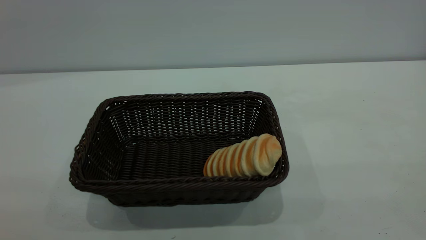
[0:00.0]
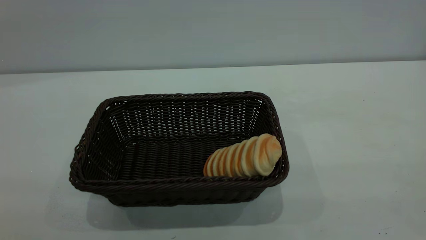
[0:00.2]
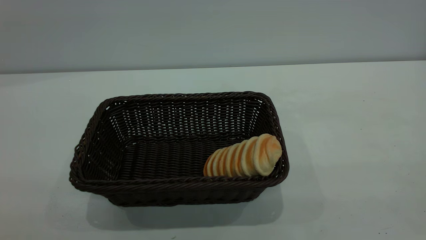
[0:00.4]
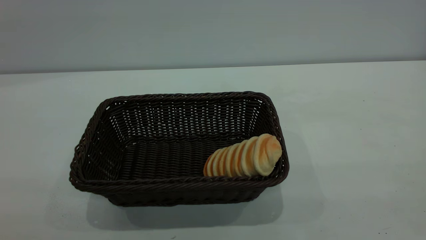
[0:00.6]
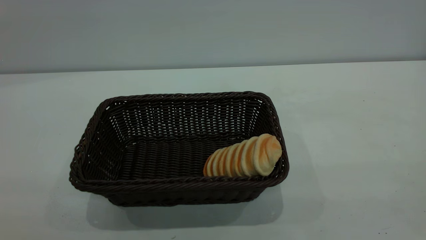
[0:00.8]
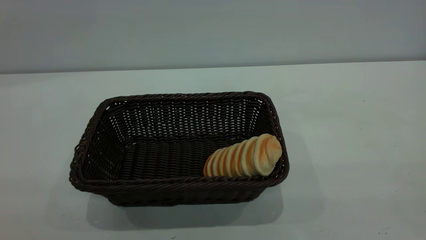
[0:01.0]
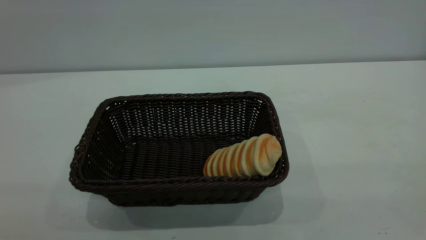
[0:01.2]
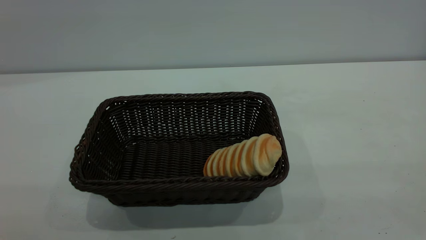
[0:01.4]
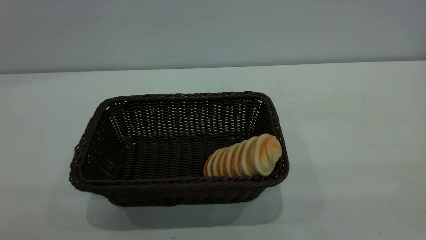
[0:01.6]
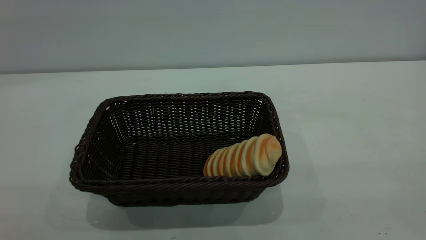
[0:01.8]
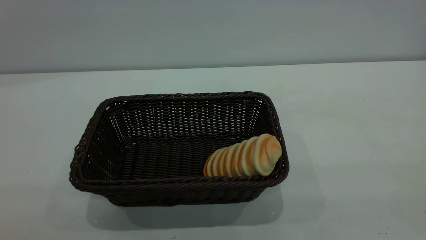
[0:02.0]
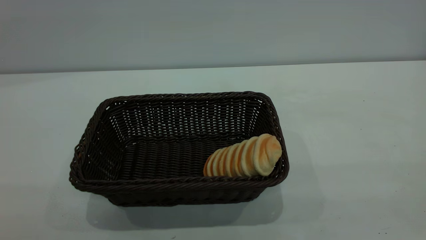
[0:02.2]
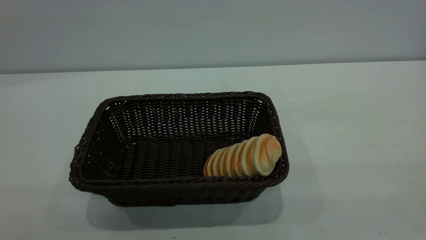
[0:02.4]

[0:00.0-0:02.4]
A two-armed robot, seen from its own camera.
Task of the whole recording: One hand grasps the black basket and places it in the middle of the table, while the other hand picks up the long bread and puts it into the black basket.
0:01.2 to 0:02.4: Neither gripper changes place.

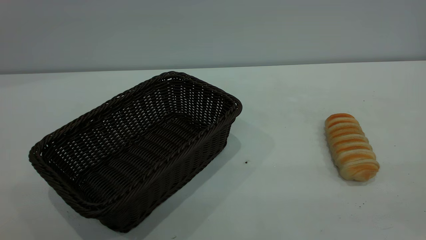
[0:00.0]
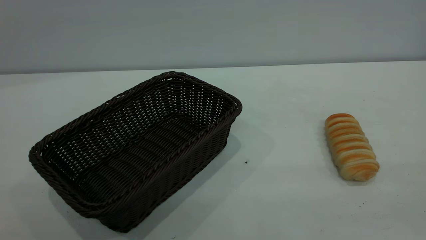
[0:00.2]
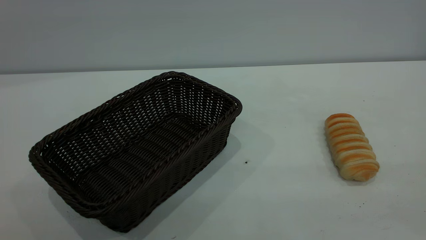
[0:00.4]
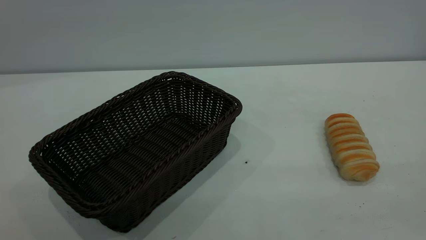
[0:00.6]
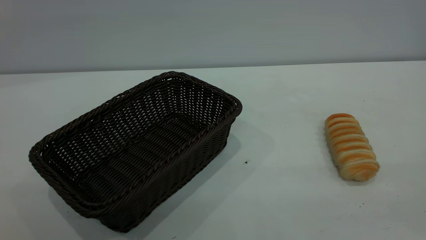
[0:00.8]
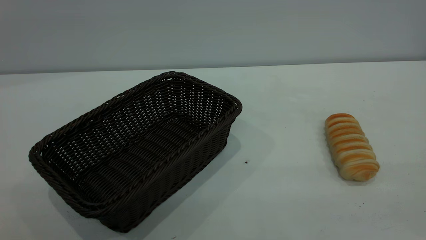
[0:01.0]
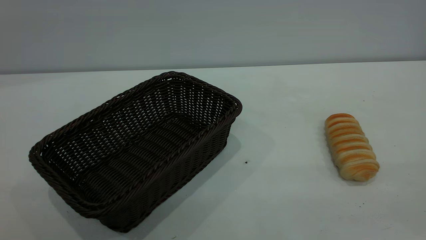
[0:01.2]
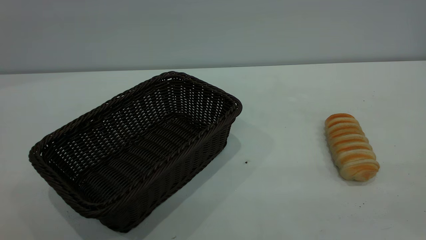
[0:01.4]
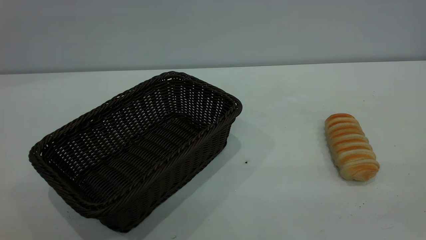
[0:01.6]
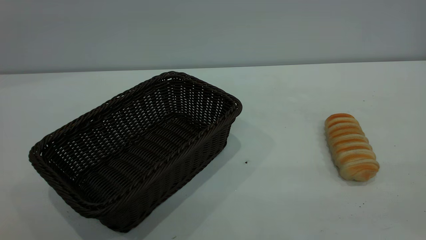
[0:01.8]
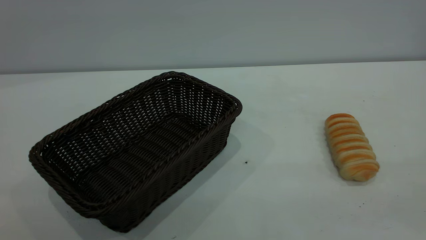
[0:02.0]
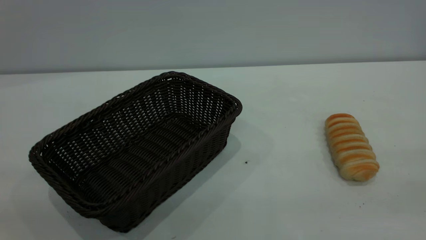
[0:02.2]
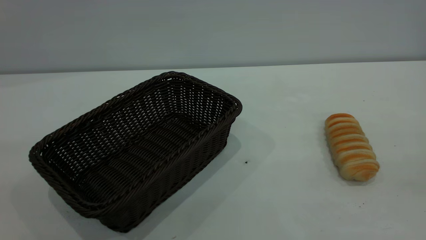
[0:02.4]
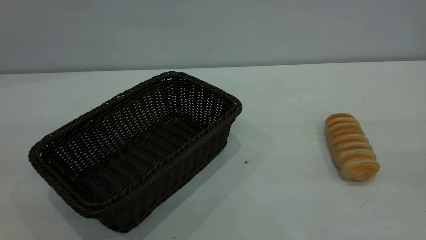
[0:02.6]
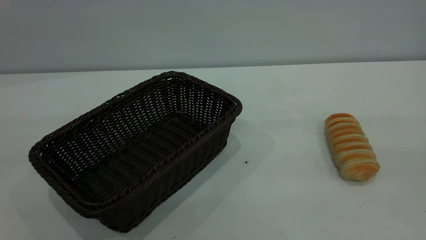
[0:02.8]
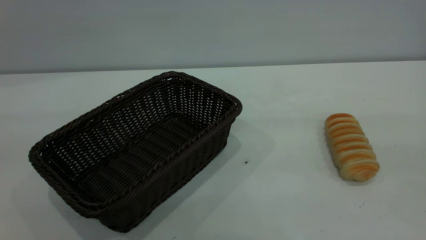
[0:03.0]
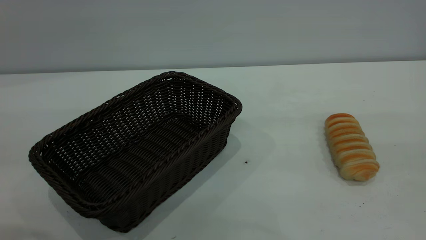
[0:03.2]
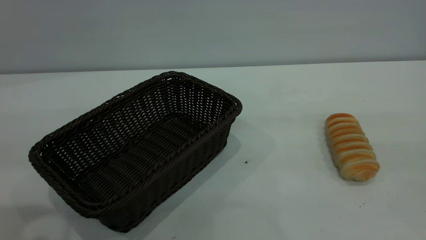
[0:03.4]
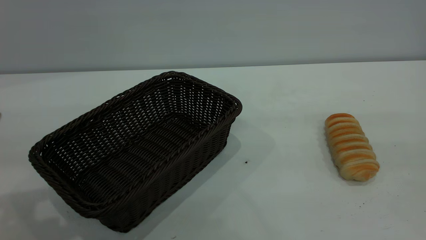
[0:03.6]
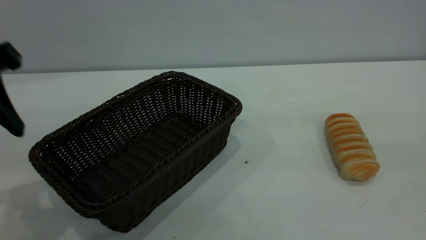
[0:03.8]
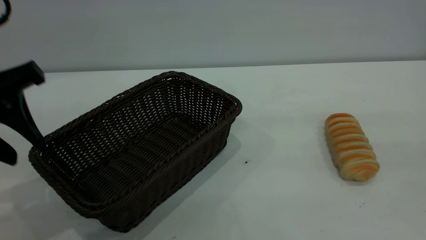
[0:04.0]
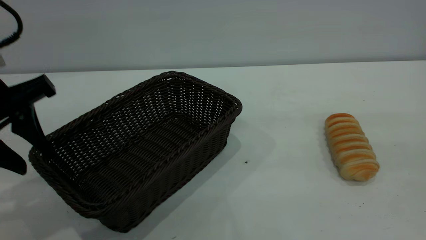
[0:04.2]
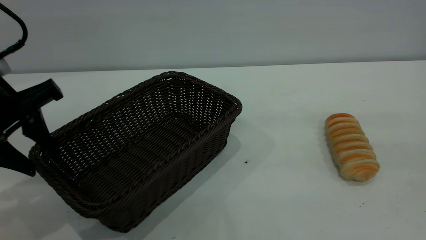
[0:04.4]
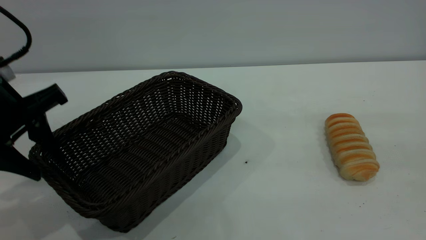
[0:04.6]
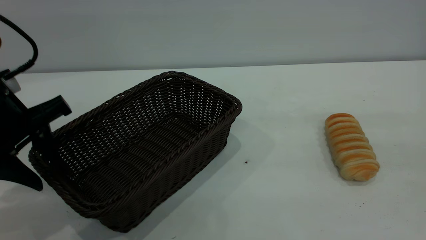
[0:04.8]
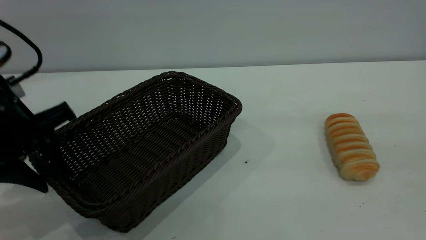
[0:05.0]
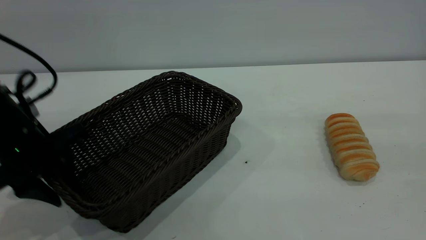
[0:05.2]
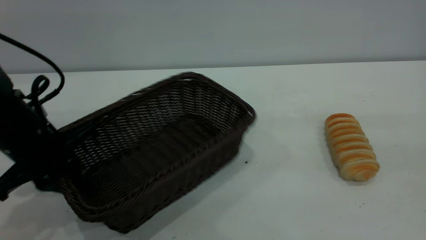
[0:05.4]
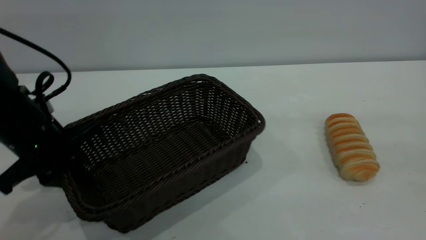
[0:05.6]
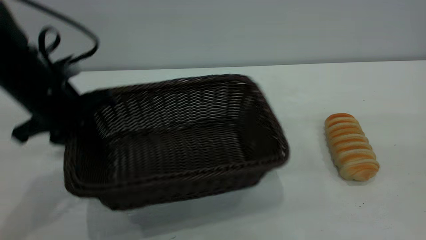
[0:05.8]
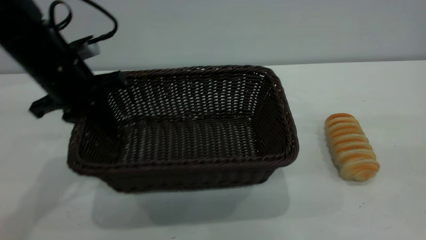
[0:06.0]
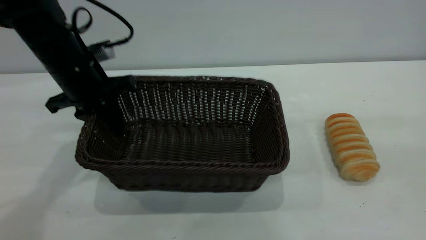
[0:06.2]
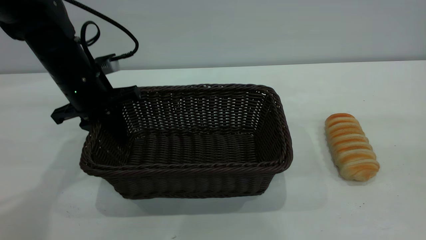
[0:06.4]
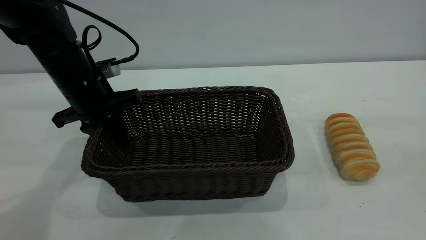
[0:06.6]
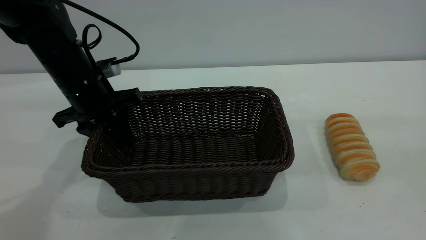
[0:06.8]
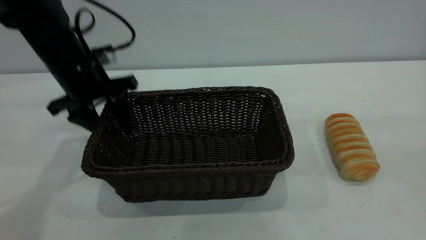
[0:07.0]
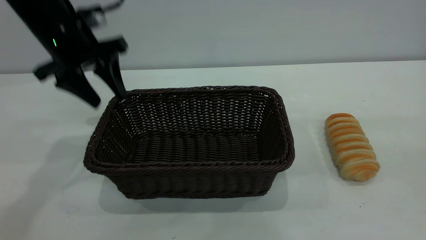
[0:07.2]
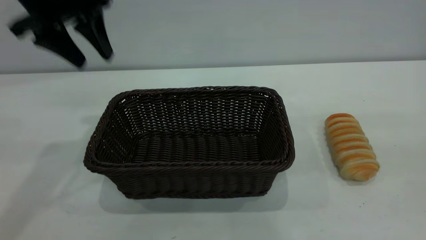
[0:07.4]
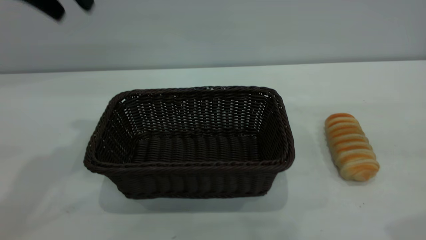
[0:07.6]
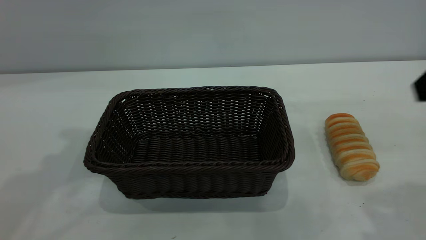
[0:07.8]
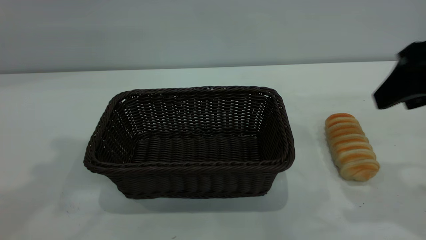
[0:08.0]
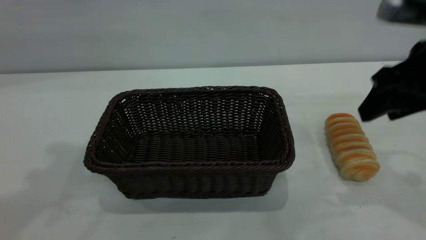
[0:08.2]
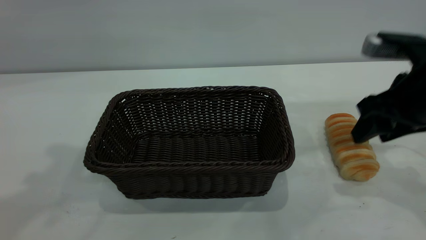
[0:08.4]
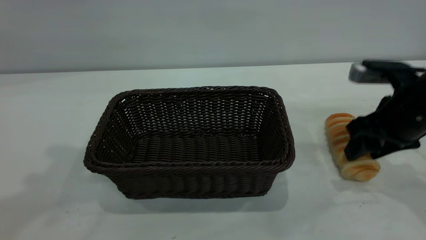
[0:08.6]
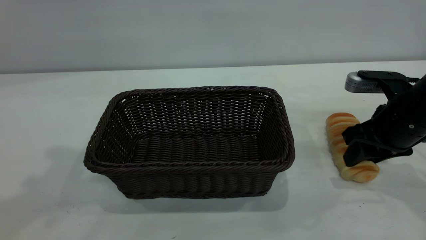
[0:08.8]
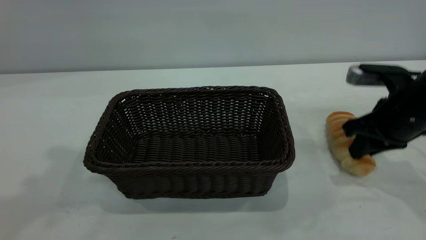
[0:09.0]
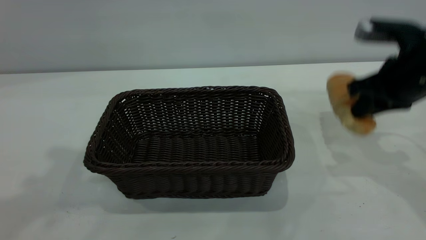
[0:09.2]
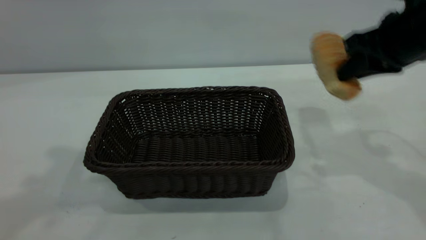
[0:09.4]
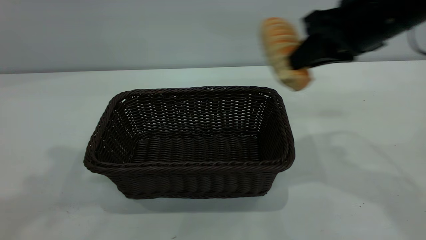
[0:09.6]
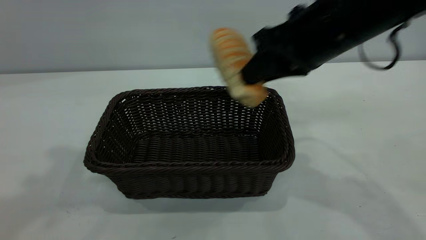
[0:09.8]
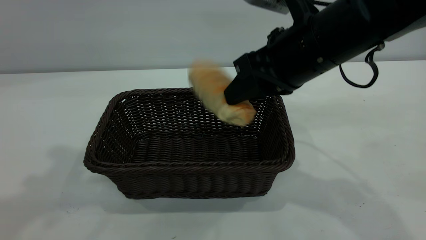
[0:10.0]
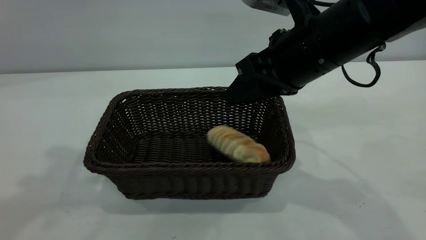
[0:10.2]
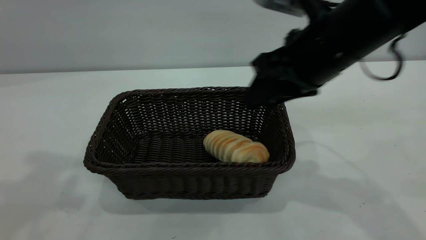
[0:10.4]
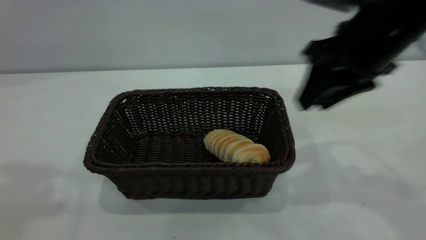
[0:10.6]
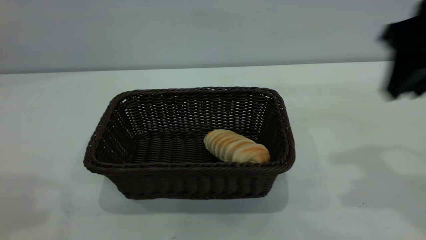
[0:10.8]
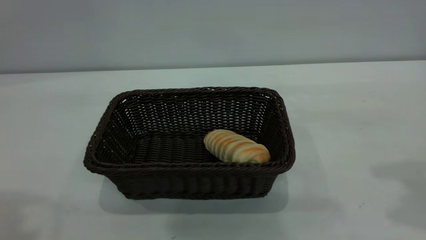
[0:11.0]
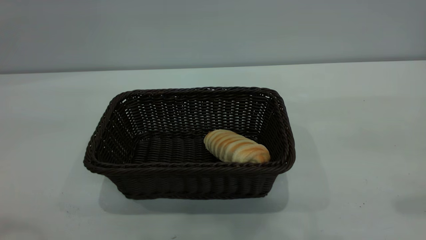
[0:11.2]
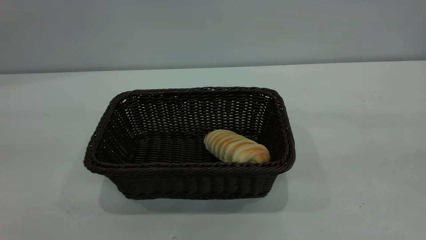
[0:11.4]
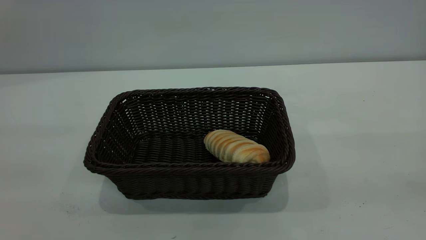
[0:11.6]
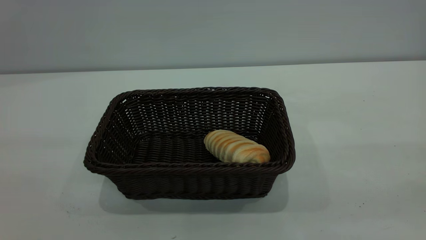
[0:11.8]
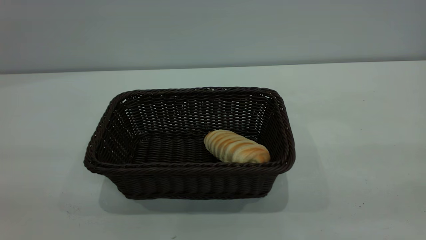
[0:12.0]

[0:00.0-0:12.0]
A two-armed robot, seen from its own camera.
Task of the whole recording: One hand grasps the black basket and places it in the middle of the table, while the other hand picks up the long bread and puts it into the black basket.
Step, 0:00.0 to 0:07.2: Move the basket to the center of view.
Step, 0:09.4 to 0:10.6: place the bread into the basket.
0:00.0 to 0:01.6: Neither gripper changes place.
0:03.0 to 0:04.4: The left gripper is displaced downward and forward by approximately 20 cm.
0:04.4 to 0:06.0: The left gripper goes approximately 10 cm forward, and closes.
0:06.0 to 0:07.6: The right gripper travels forward by approximately 5 cm, while the left gripper is displaced upward by some 20 cm, and opens its fingers.
0:07.6 to 0:09.0: The right gripper heads downward and forward, covering roughly 25 cm, and closes up. The left gripper shifts roughly 10 cm upward and backward.
0:09.0 to 0:10.4: The right gripper is displaced to the left and upward by some 15 cm, and opens.
0:10.4 to 0:12.0: The left gripper shifts approximately 25 cm backward and downward; the right gripper travels backward, to the right and upward by approximately 35 cm.
